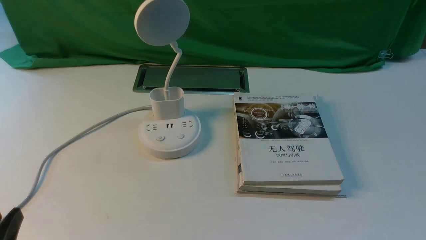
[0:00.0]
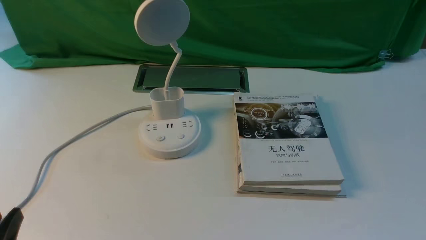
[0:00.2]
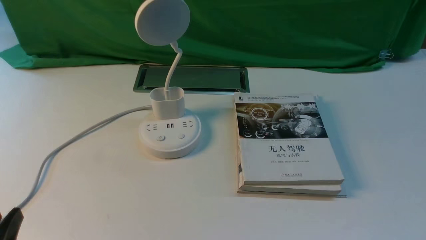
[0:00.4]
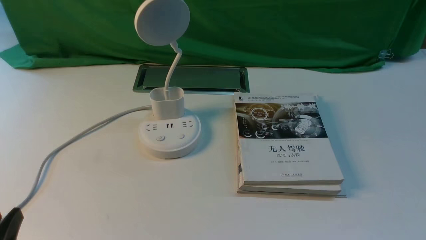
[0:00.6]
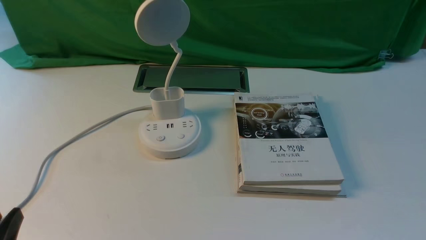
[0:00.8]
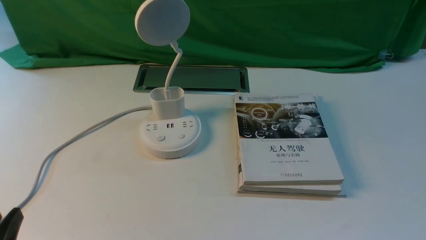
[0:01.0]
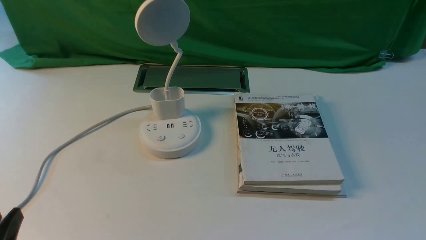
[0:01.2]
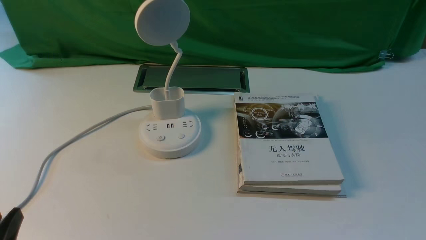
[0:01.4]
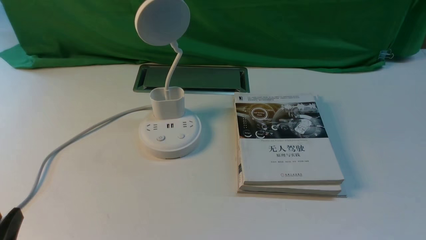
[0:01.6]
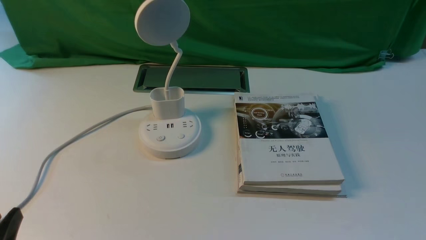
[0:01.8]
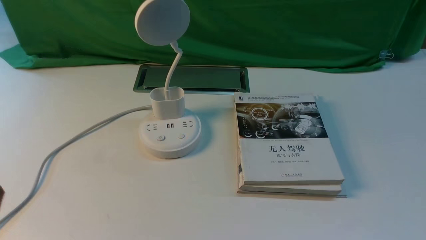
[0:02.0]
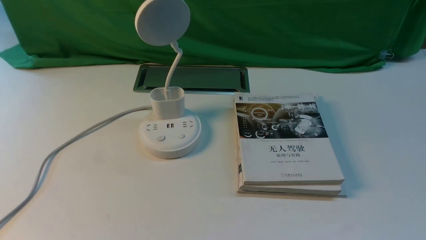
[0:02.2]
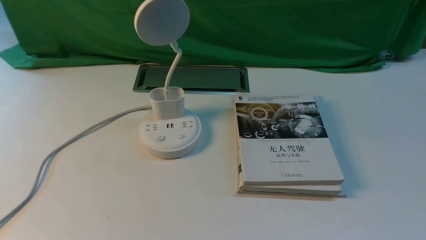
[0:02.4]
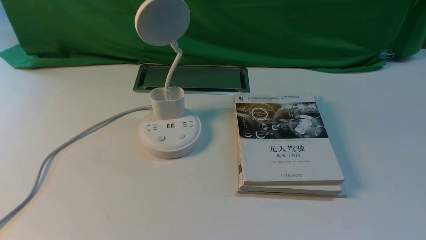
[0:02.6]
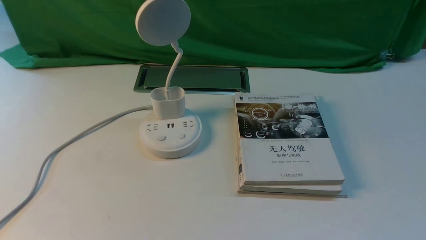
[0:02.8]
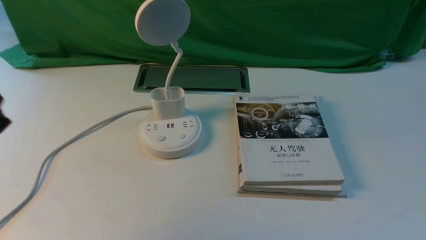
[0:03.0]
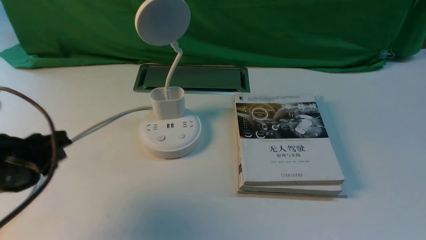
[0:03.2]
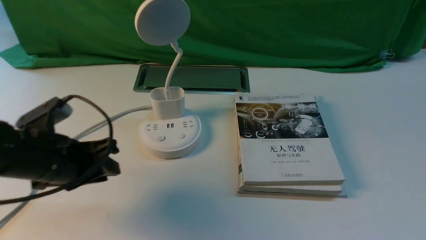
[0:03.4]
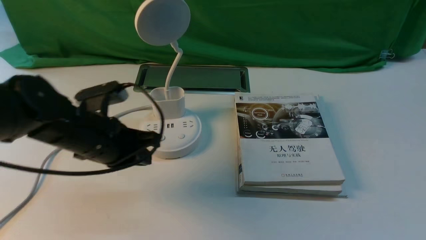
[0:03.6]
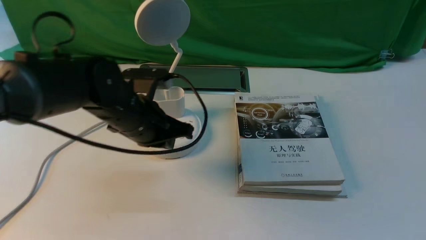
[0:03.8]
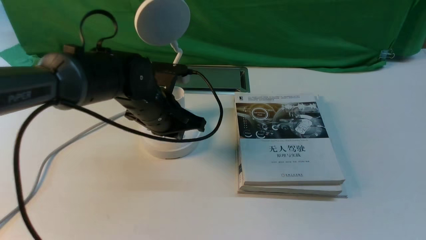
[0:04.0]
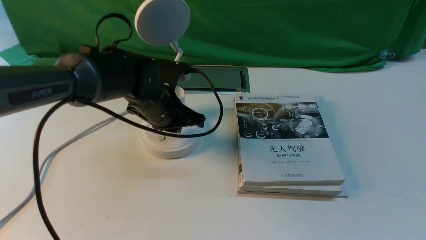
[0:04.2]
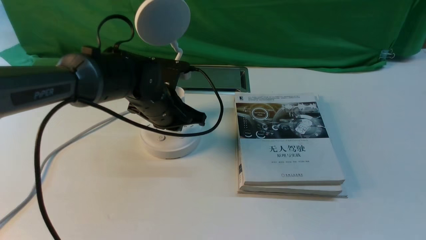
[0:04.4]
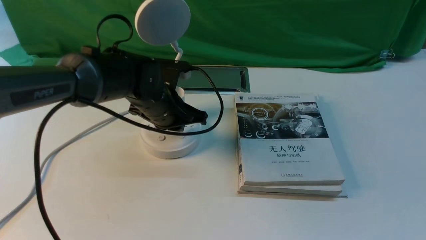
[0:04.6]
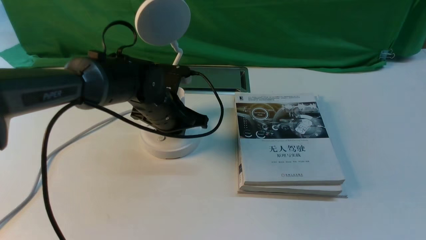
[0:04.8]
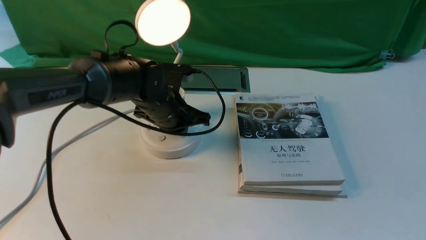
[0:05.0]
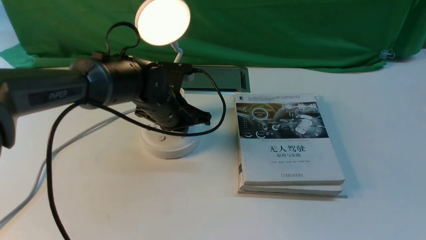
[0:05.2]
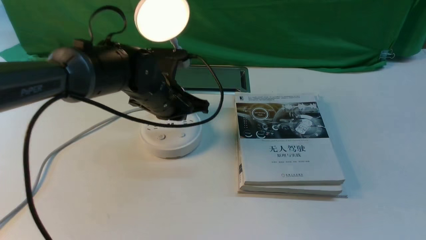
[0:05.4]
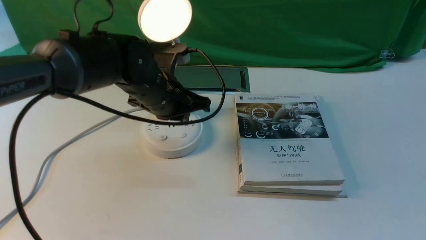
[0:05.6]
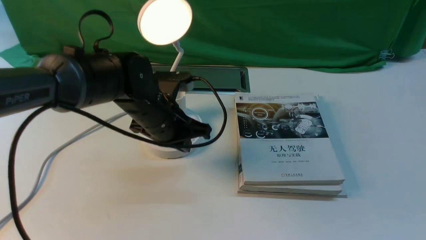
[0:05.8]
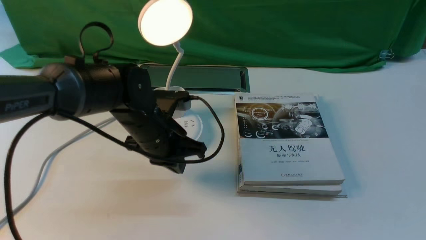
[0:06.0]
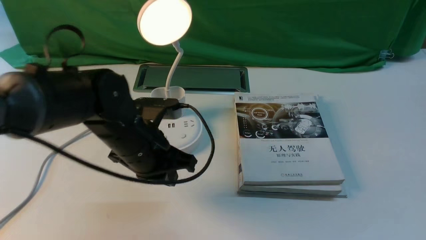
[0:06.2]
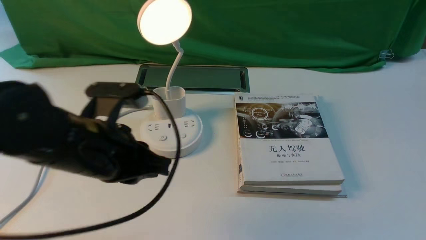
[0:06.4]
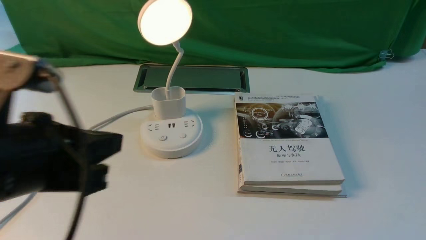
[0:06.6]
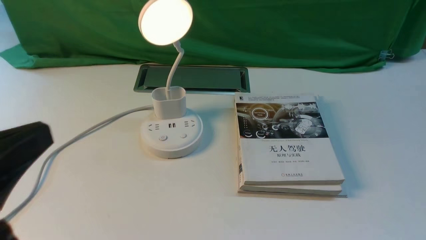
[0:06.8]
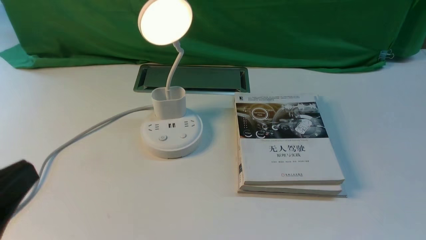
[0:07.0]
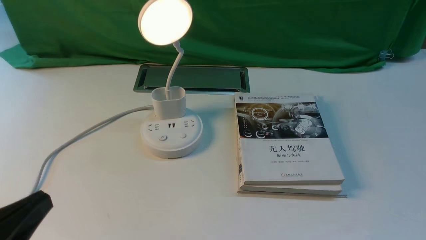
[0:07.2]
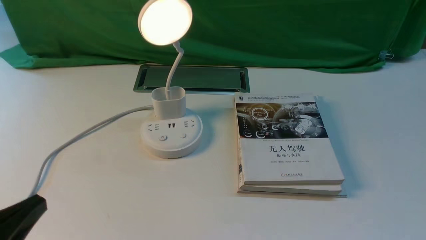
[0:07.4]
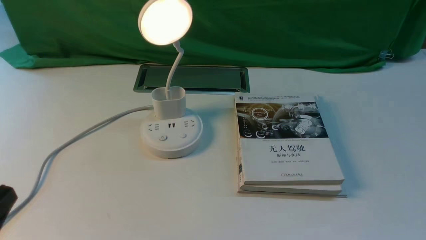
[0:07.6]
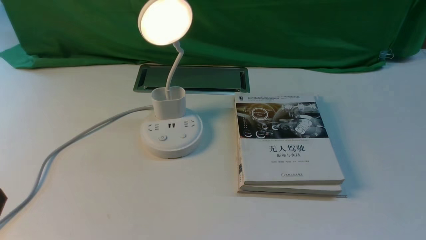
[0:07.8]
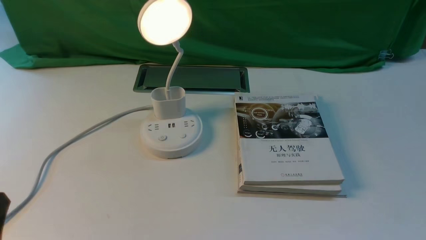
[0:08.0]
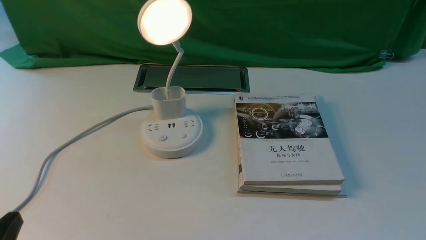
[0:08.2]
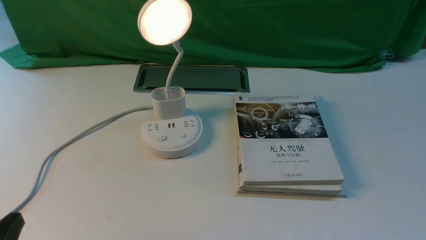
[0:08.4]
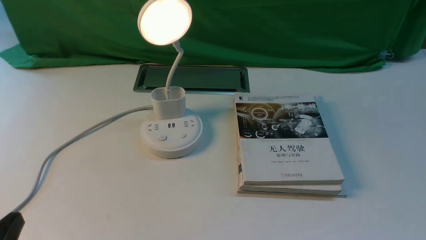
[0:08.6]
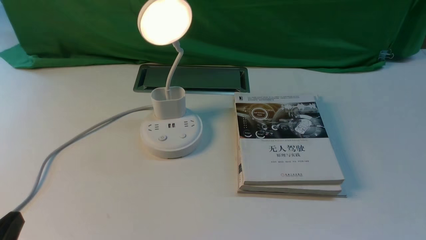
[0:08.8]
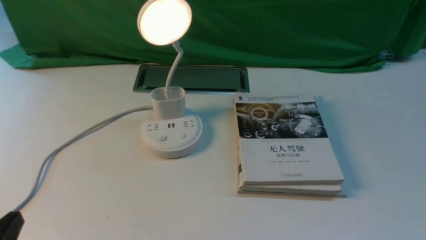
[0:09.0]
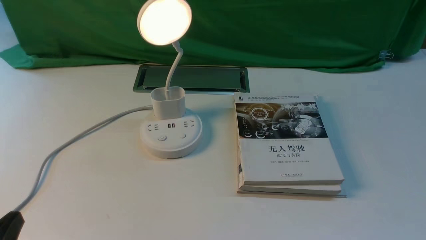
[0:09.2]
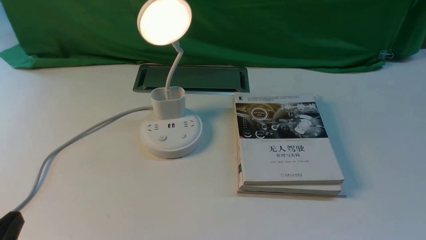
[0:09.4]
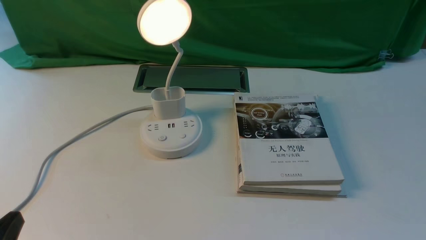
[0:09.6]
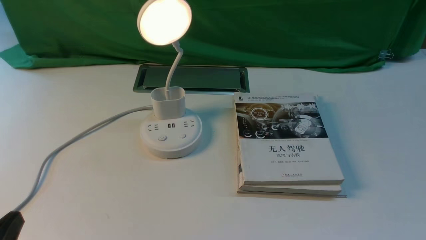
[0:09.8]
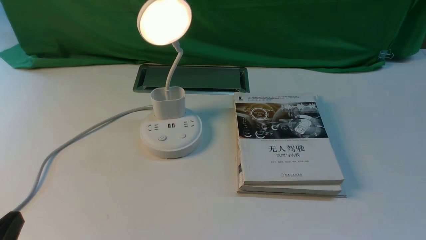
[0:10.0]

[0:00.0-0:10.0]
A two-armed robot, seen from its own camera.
Step, 0:00.0 to 0:05.4: use the left arm to press the button switch on the lamp holder.
0:01.4 to 0:02.8: The left gripper shifts some 15 cm upward.
0:02.8 to 0:04.2: The left gripper shifts some 40 cm forward, to the right and downward, and closes.
0:04.2 to 0:05.8: There are only small adjustments of the grippers.
0:05.8 to 0:07.2: The left gripper goes roughly 35 cm backward and to the left.
0:07.2 to 0:08.6: The left gripper goes about 10 cm downward.
0:08.6 to 0:10.0: Neither gripper changes place.
